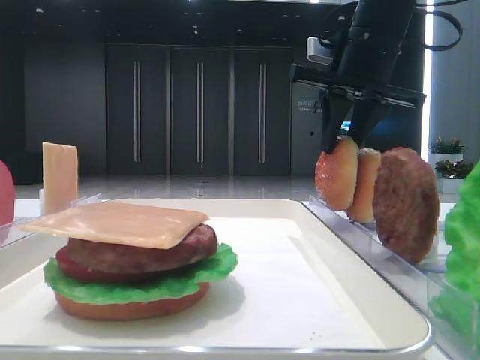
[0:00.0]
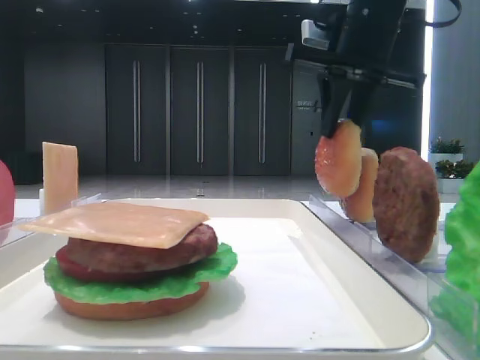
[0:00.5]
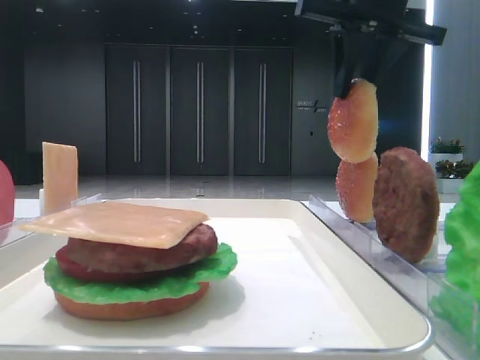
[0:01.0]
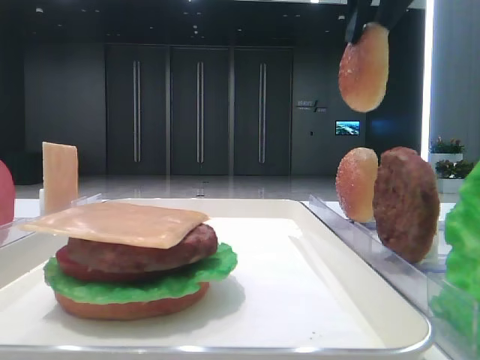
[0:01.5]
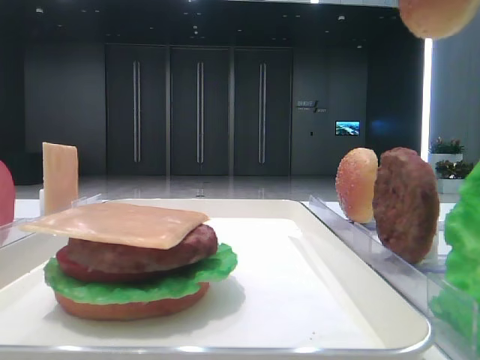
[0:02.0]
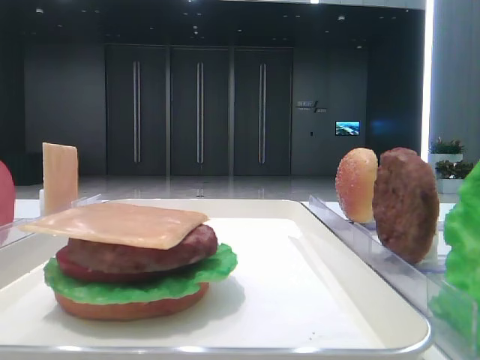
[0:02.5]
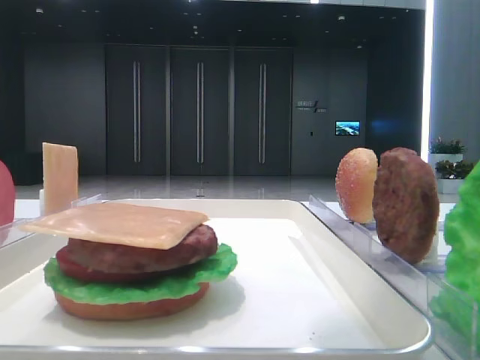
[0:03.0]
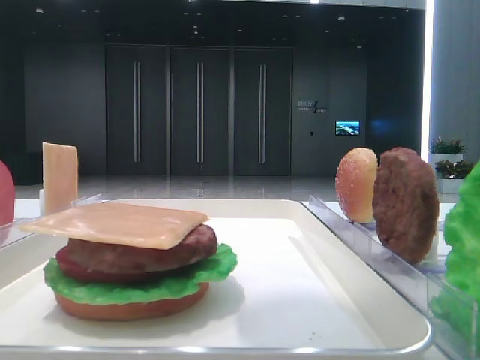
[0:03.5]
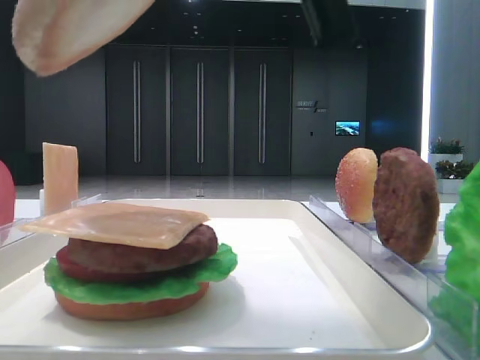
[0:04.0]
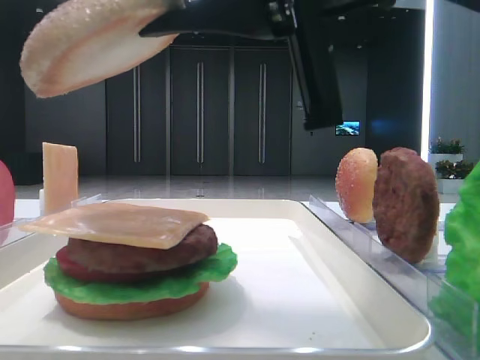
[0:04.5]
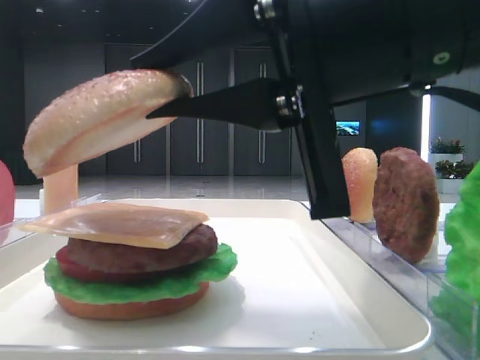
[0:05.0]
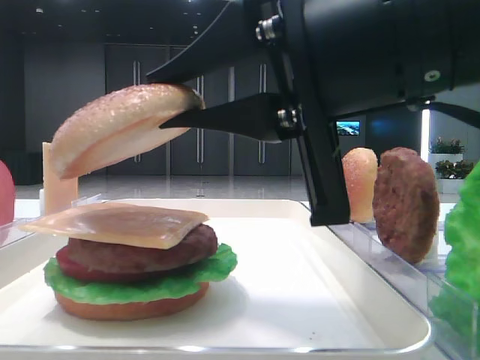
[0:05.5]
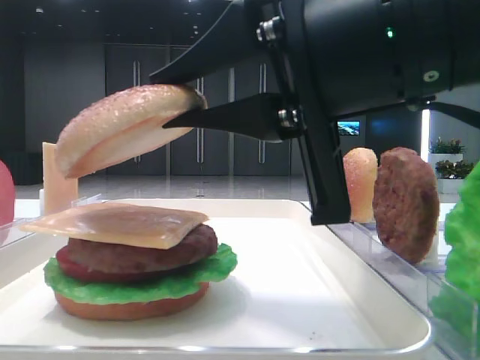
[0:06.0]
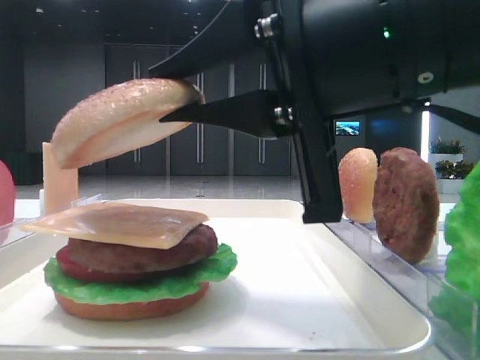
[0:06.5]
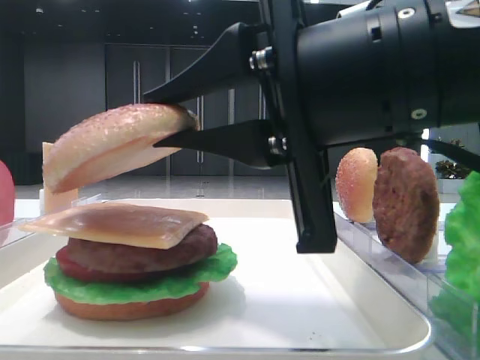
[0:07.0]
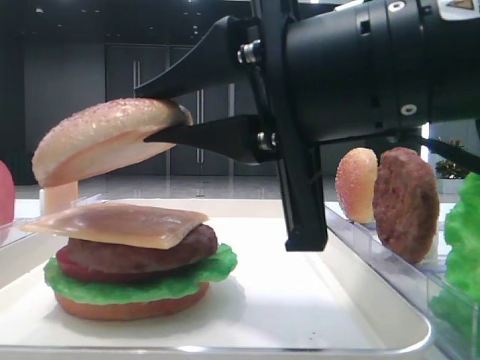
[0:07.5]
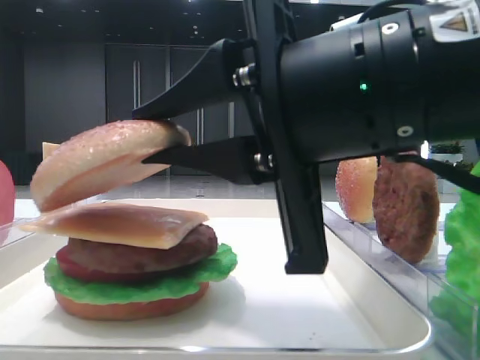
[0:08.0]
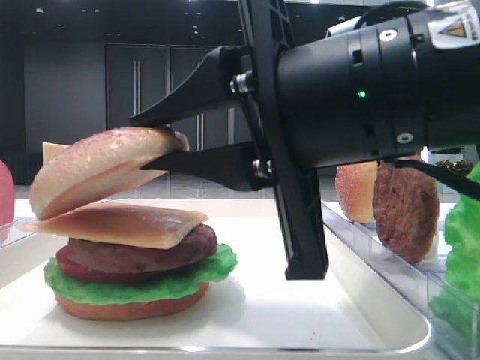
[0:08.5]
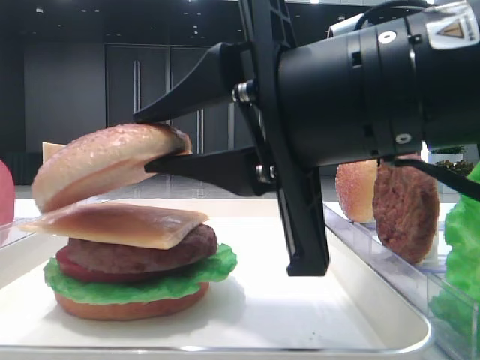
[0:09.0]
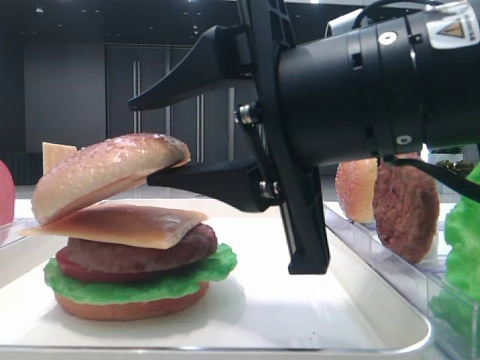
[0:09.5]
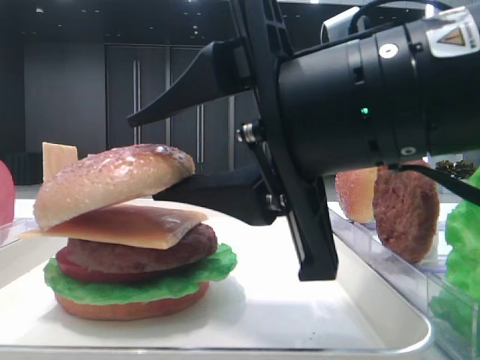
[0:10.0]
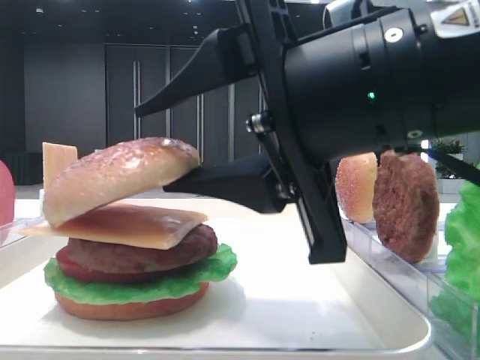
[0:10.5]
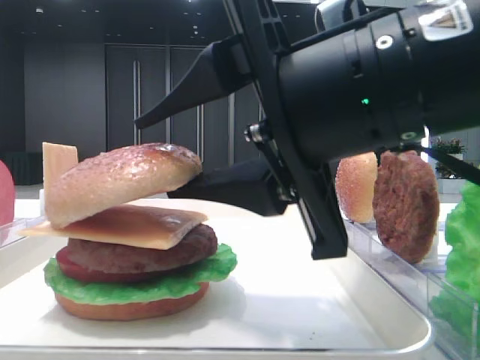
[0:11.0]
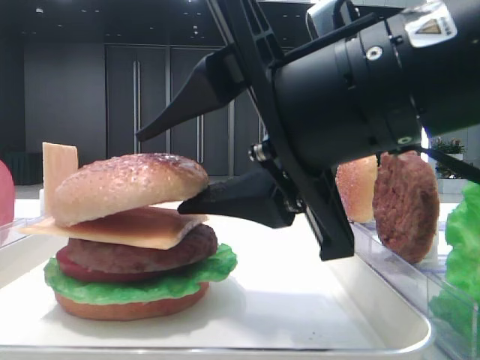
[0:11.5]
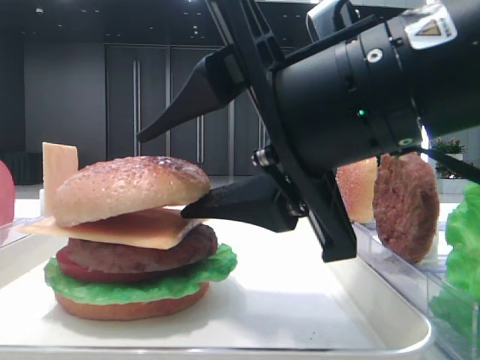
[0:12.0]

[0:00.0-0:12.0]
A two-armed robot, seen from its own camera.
0:00.0 to 0:02.0: The right gripper heads backward and upward, covering about 25 cm.
0:02.0 to 0:04.0: The right gripper is displaced downward, to the left and backward by roughly 20 cm.
0:04.0 to 0:06.0: The right gripper is displaced downward by about 10 cm.
0:08.0 to 0:10.0: The right gripper opens.

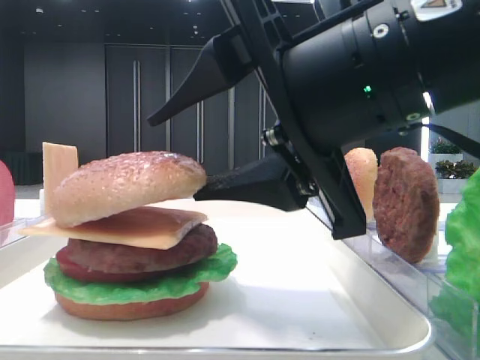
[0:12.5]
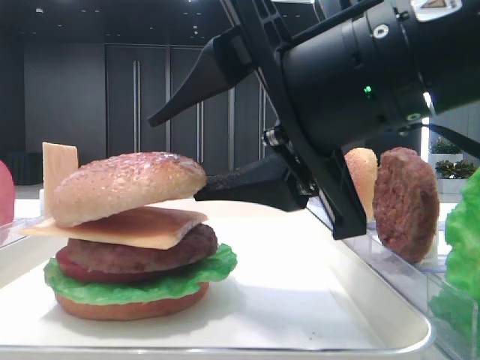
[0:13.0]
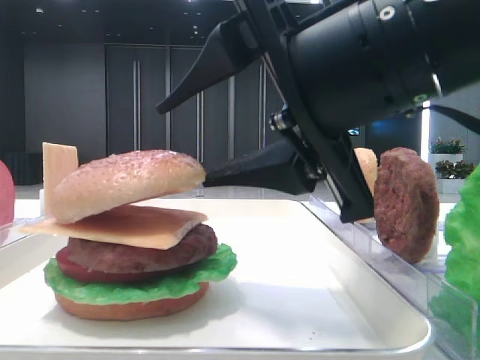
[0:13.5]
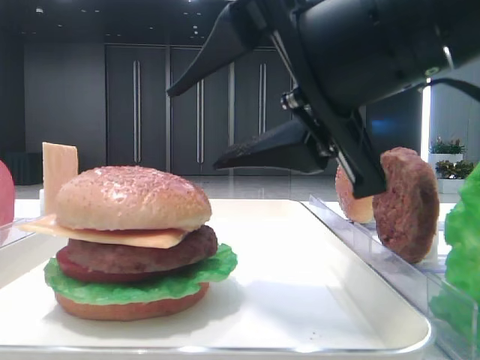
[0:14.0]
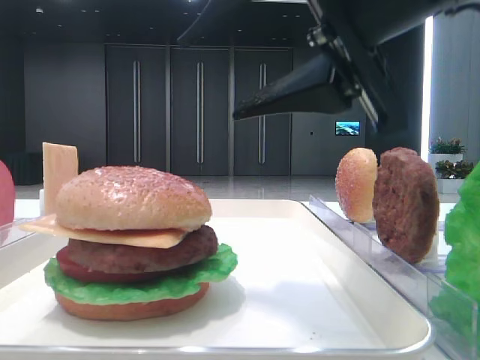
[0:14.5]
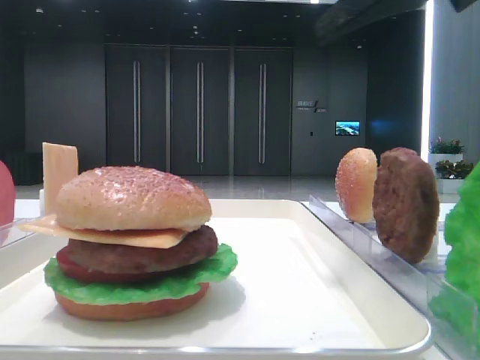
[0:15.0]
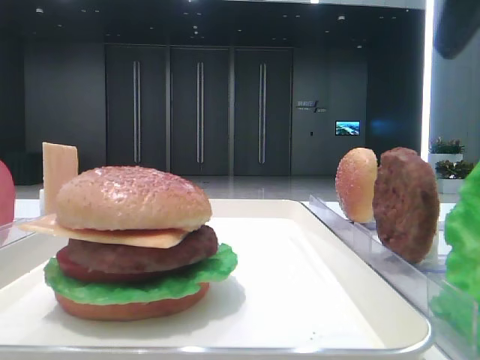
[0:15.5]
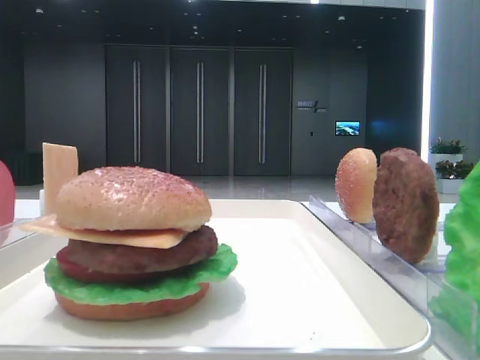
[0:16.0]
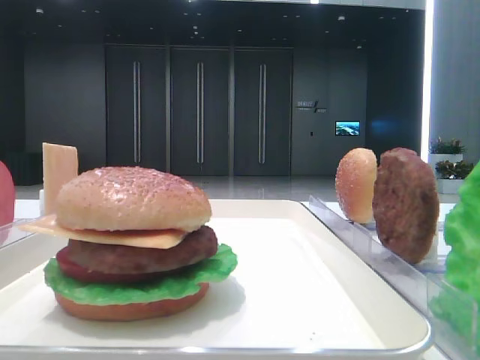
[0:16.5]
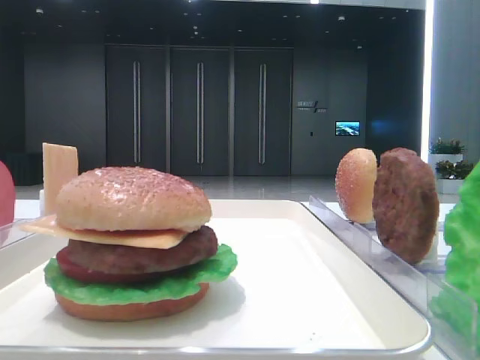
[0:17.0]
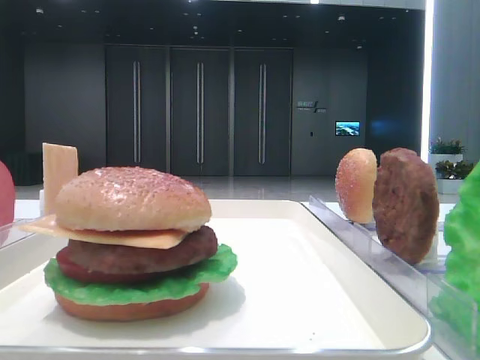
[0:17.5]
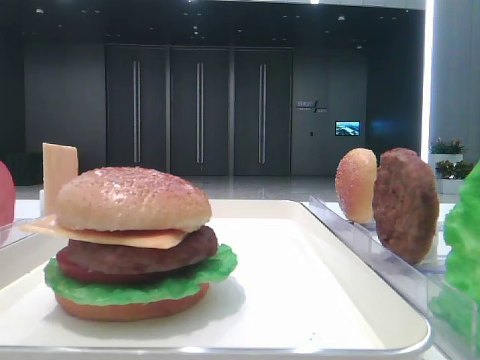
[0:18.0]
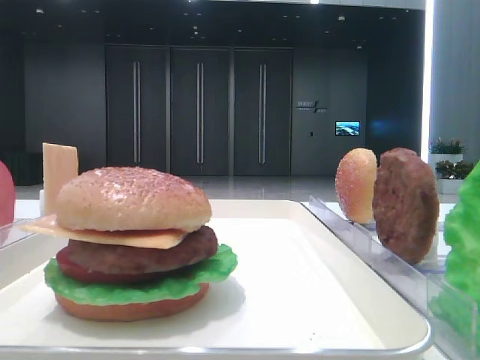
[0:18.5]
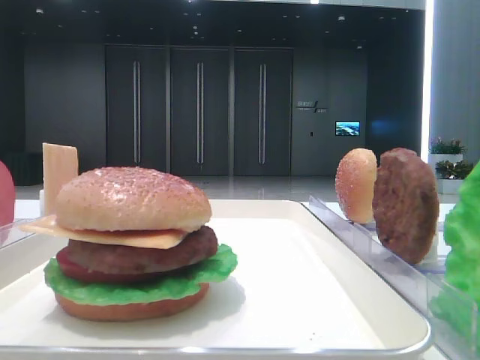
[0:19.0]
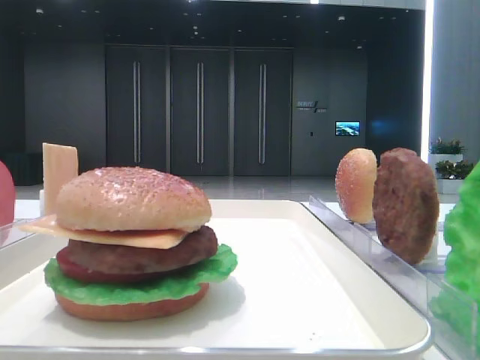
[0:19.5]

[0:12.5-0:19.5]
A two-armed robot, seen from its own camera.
0:12.5 to 0:14.5: The right gripper shifts about 5 cm upward.
0:14.5 to 0:16.0: The right gripper moves to the right and upward, about 20 cm.
